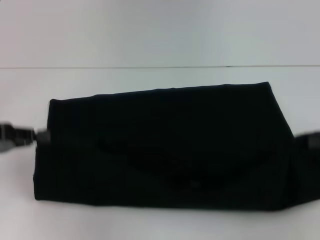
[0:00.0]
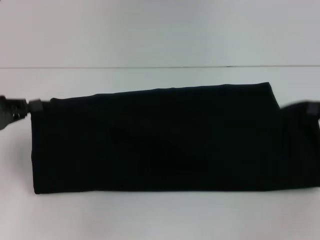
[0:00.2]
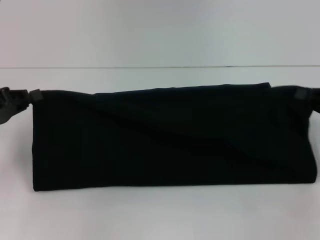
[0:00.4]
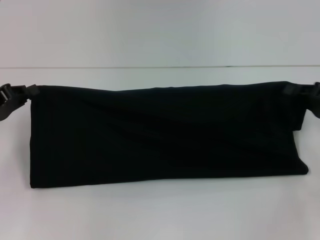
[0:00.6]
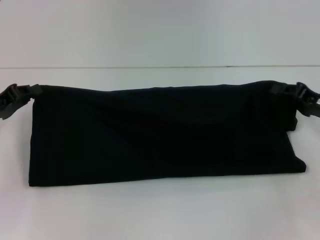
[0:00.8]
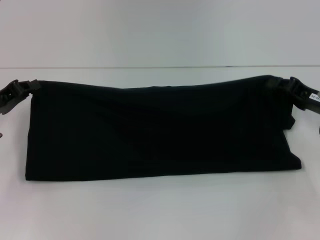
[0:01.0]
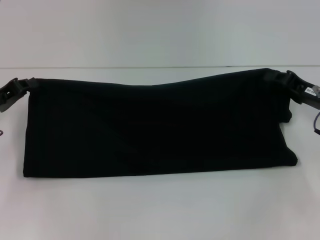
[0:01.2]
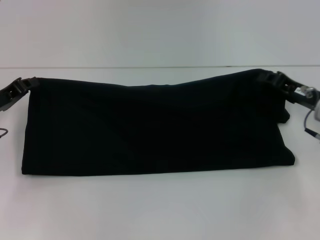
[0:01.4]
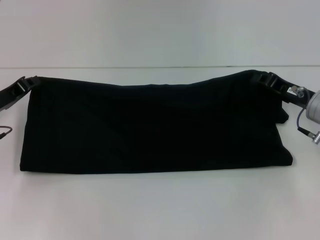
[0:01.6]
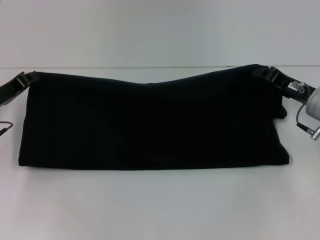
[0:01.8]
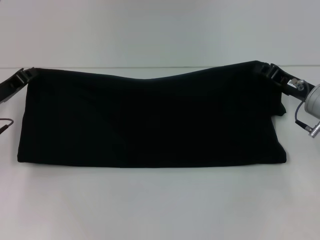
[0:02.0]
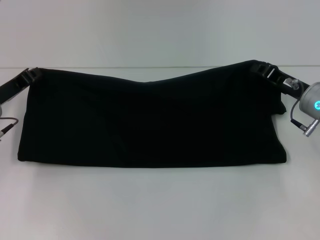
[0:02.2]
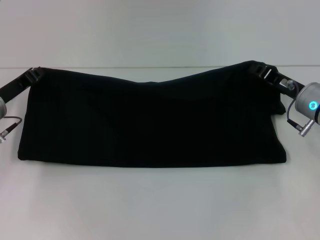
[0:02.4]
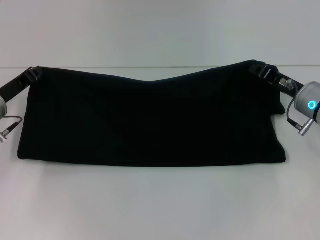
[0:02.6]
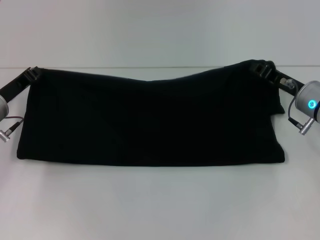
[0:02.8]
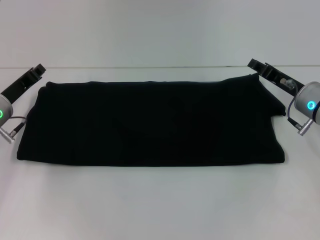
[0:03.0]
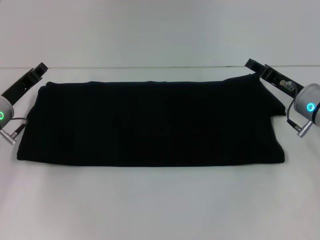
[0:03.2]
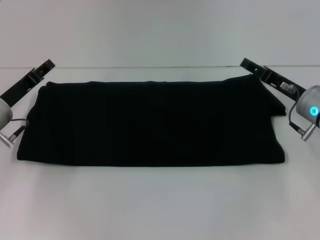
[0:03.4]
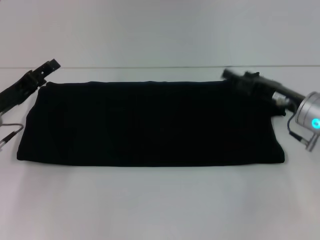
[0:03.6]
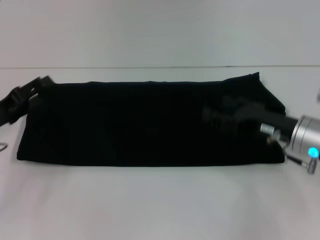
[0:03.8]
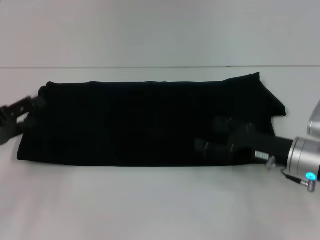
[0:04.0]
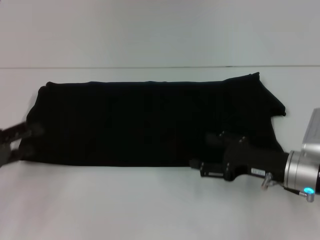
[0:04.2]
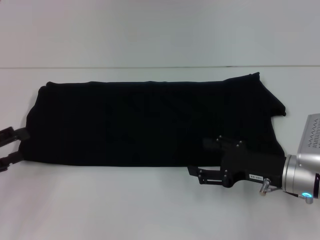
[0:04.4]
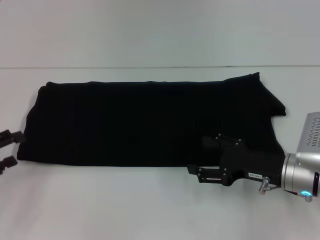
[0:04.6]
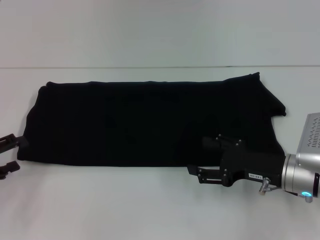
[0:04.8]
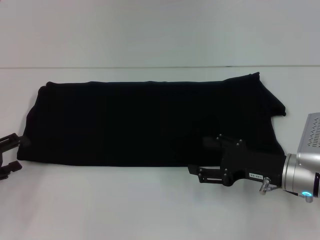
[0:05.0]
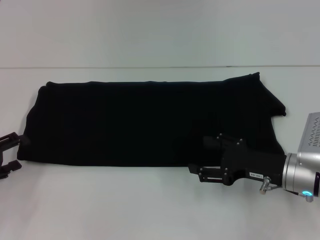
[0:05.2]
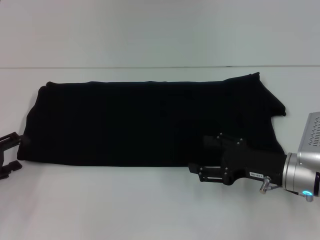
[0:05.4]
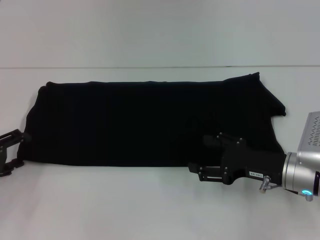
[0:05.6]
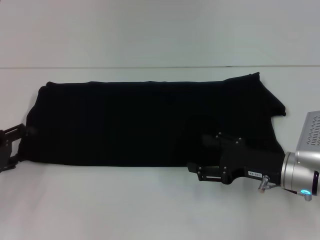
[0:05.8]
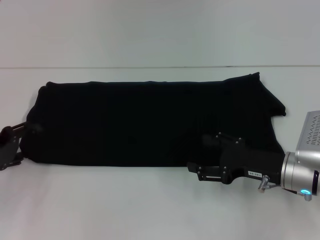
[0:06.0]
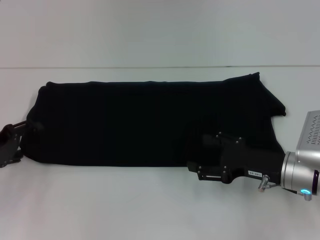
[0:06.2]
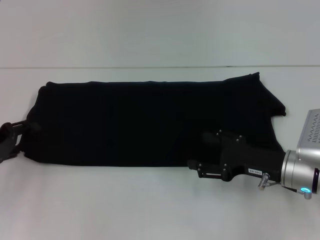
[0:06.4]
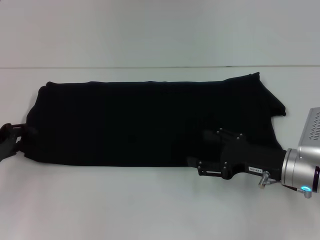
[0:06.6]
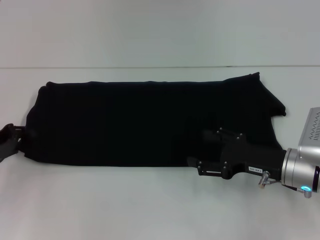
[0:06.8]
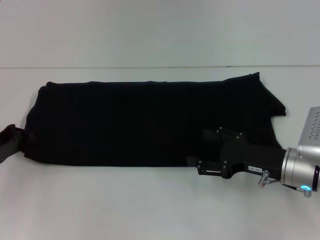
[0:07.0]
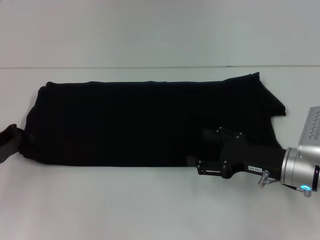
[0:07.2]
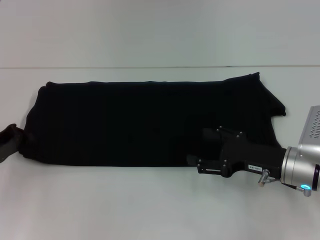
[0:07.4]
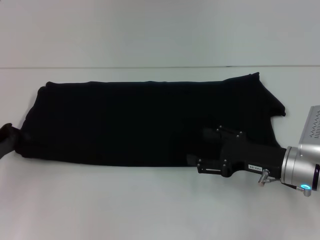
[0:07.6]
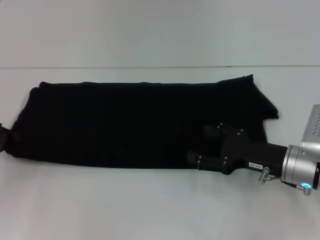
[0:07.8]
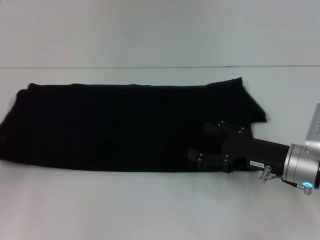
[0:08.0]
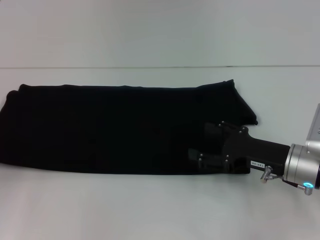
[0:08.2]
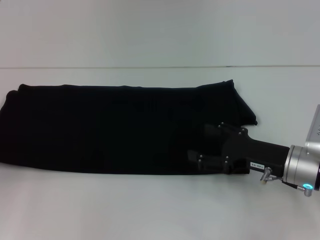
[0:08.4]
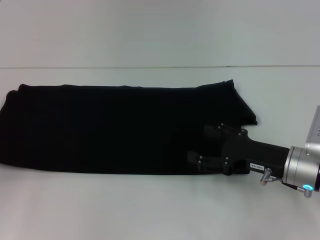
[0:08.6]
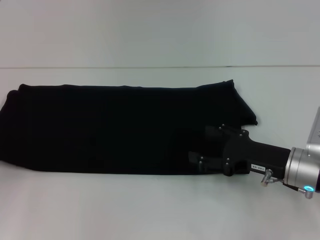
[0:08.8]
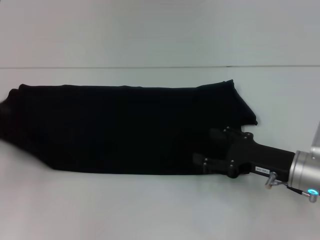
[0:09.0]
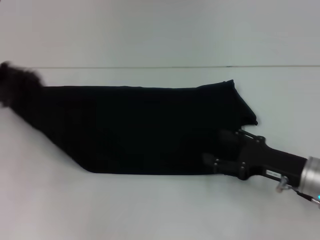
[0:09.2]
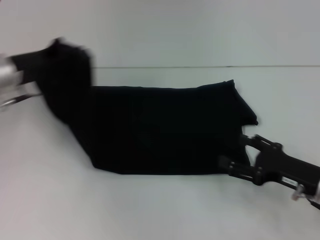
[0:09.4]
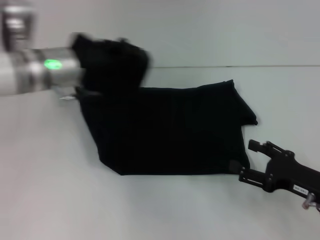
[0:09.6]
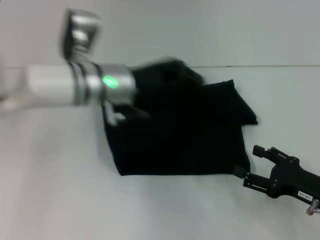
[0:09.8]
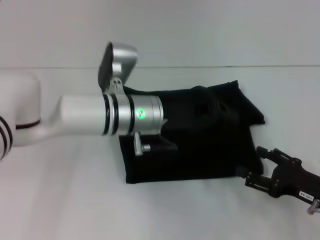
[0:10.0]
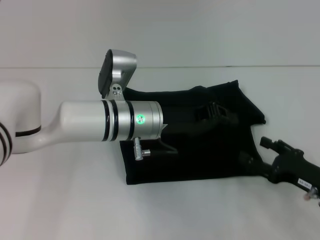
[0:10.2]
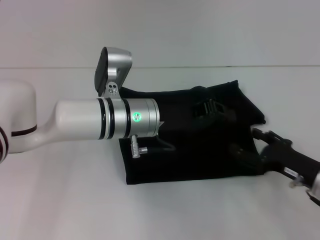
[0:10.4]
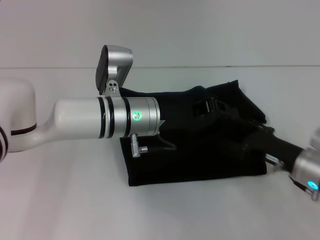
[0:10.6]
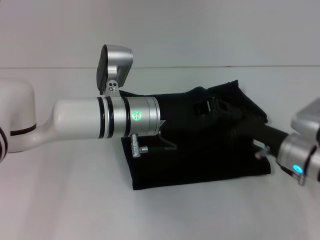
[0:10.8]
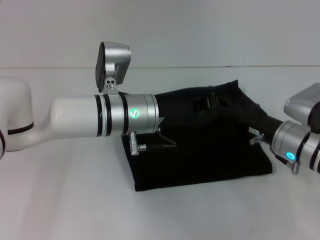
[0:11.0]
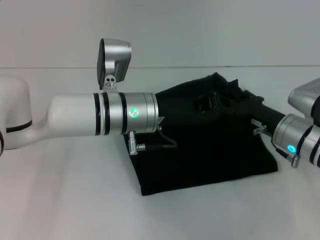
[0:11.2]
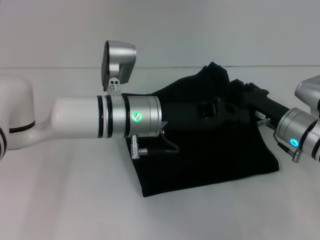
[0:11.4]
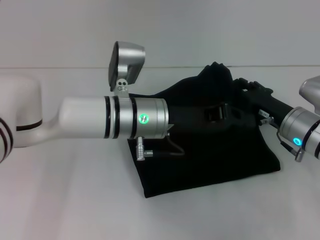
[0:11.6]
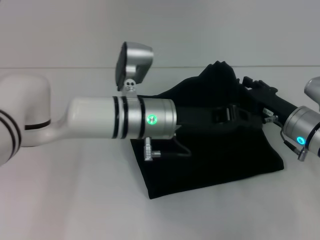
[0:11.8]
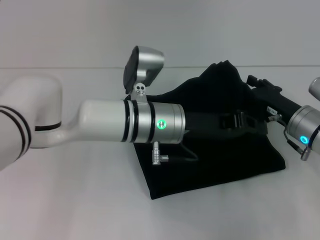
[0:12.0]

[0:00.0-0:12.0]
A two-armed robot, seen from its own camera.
Step, 0:00.0 to 0:03.0: Fold the clothes with your right hand.
0:00.0 to 0:01.6: The right gripper travels to the left, forward and downward by approximately 15 cm. The left gripper heads forward and downward, covering approximately 10 cm.
0:01.6 to 0:03.0: The grippers make only small movements.
0:03.0 to 0:04.4: The right gripper travels backward by roughly 10 cm, and opens its fingers; the left gripper heads backward and to the left, covering about 15 cm, and opens.
0:04.4 to 0:06.0: The left gripper heads forward, covering roughly 5 cm.
0:06.0 to 0:07.6: The left gripper closes.
0:07.6 to 0:09.0: The grippers move only a little.
0:09.0 to 0:10.4: The left gripper shifts approximately 30 cm to the right.
0:10.4 to 0:12.0: The right gripper travels forward by some 10 cm.

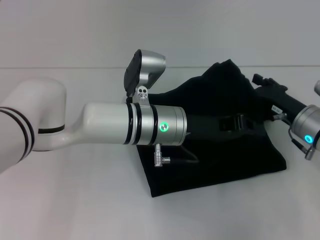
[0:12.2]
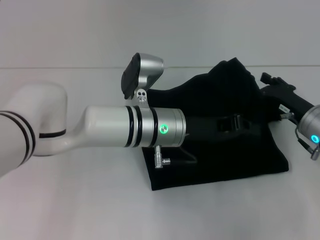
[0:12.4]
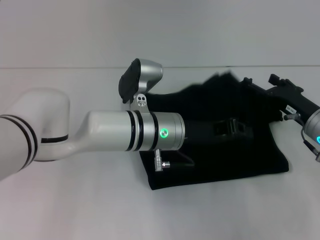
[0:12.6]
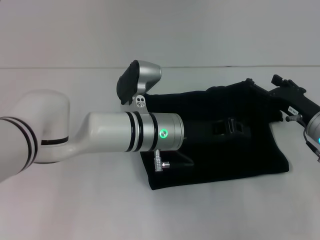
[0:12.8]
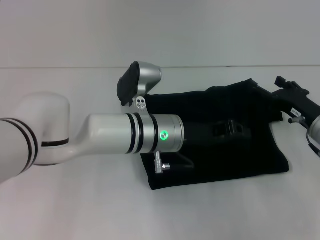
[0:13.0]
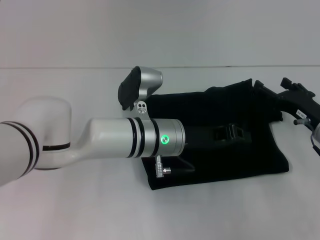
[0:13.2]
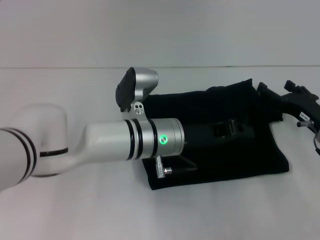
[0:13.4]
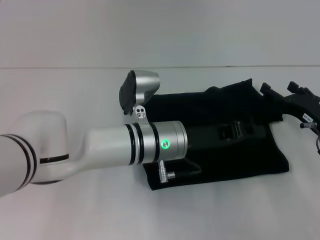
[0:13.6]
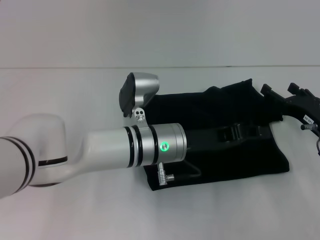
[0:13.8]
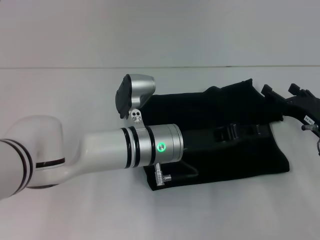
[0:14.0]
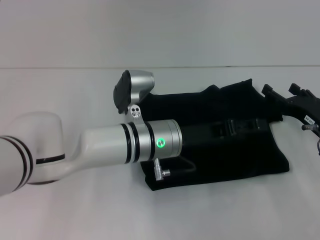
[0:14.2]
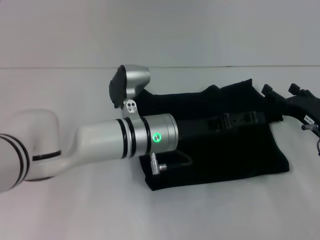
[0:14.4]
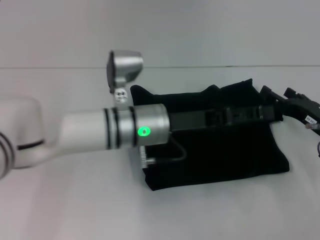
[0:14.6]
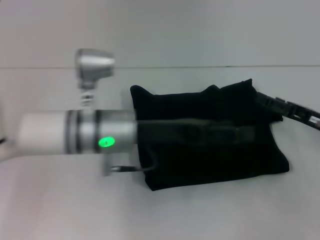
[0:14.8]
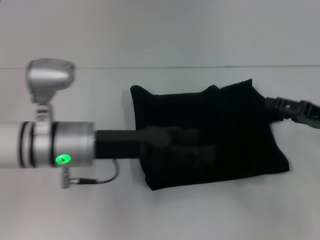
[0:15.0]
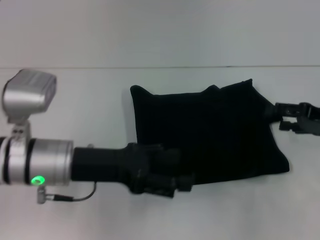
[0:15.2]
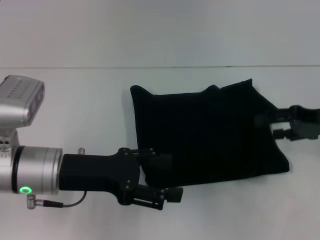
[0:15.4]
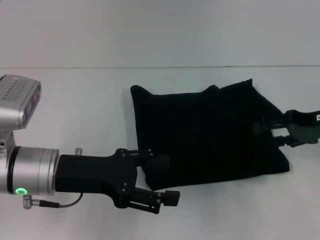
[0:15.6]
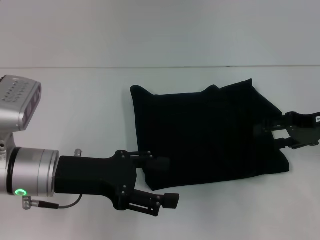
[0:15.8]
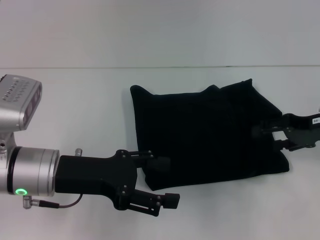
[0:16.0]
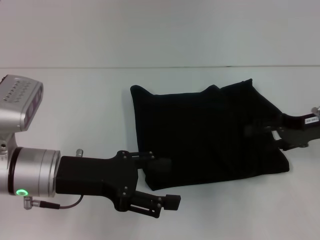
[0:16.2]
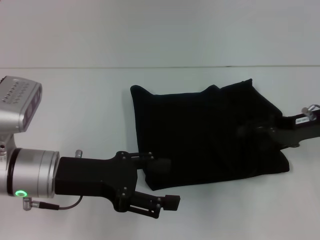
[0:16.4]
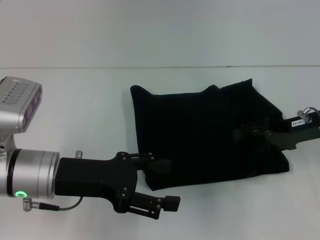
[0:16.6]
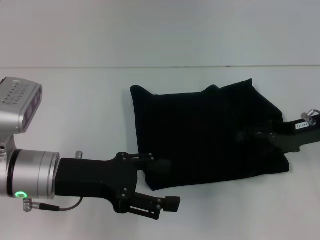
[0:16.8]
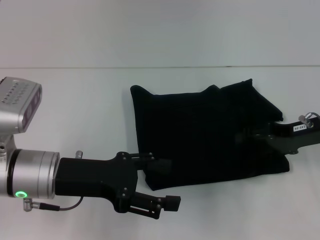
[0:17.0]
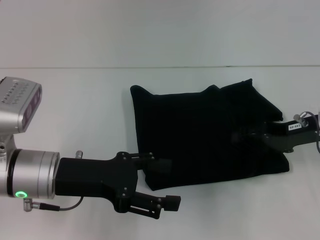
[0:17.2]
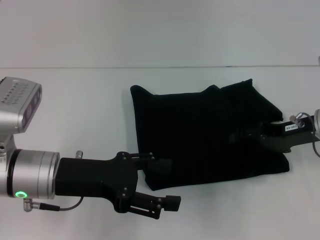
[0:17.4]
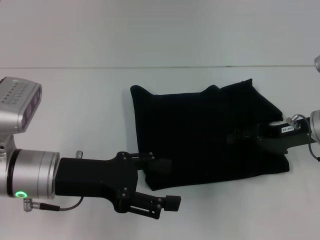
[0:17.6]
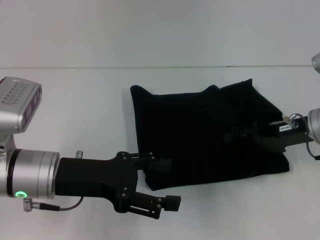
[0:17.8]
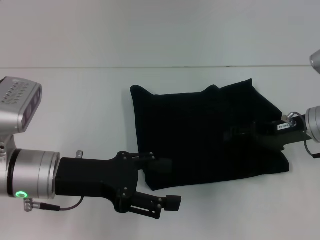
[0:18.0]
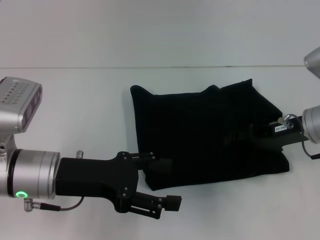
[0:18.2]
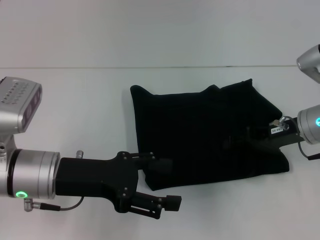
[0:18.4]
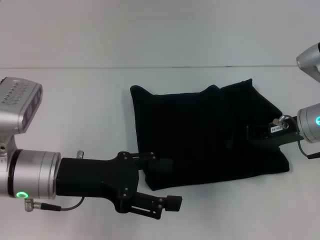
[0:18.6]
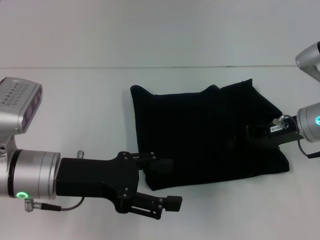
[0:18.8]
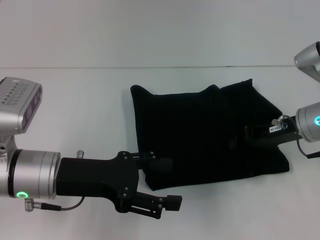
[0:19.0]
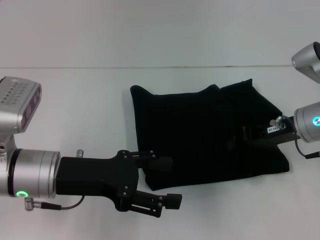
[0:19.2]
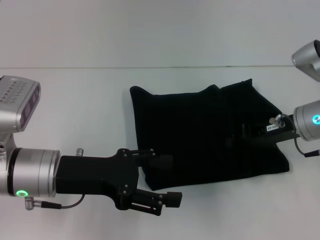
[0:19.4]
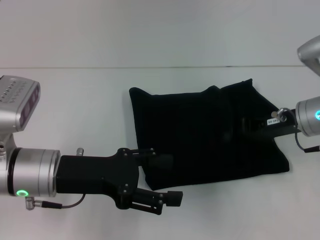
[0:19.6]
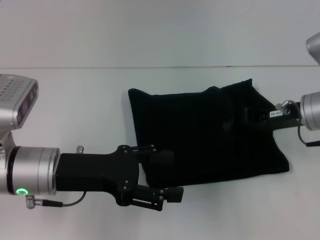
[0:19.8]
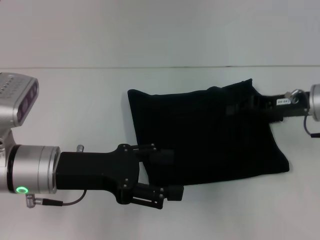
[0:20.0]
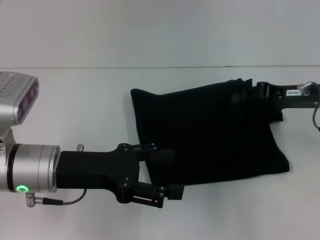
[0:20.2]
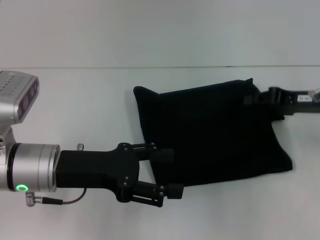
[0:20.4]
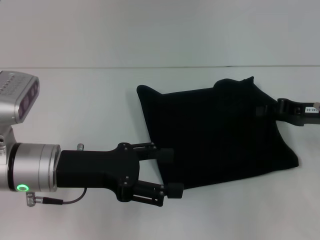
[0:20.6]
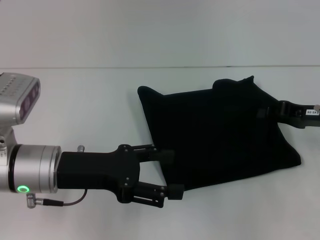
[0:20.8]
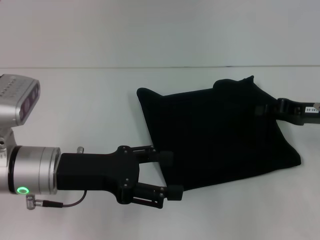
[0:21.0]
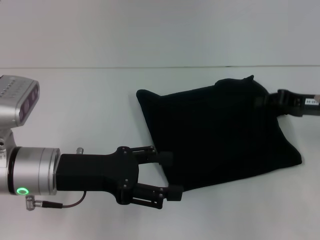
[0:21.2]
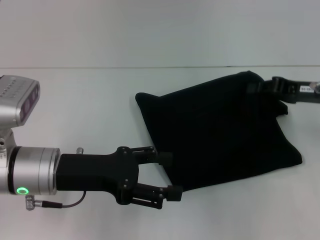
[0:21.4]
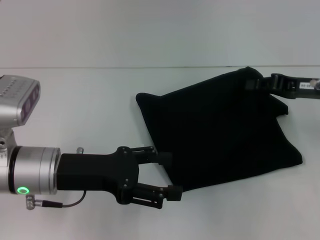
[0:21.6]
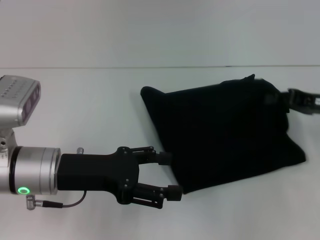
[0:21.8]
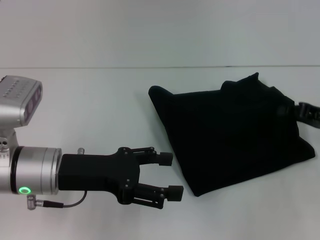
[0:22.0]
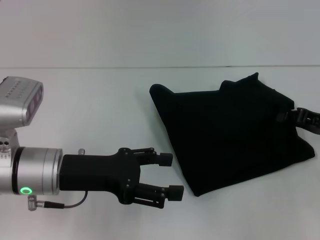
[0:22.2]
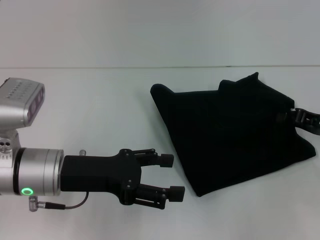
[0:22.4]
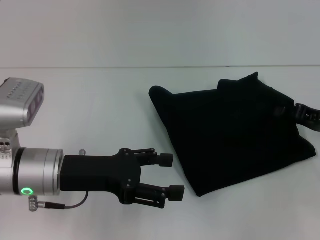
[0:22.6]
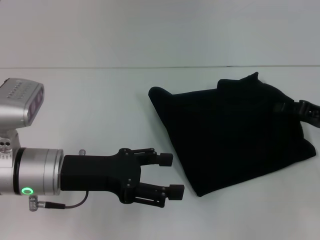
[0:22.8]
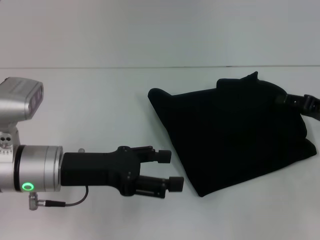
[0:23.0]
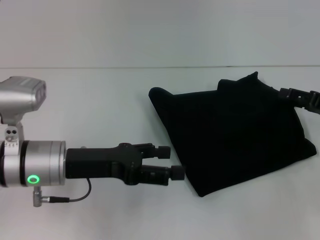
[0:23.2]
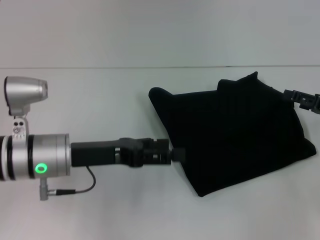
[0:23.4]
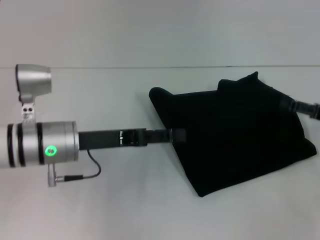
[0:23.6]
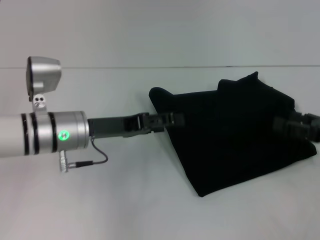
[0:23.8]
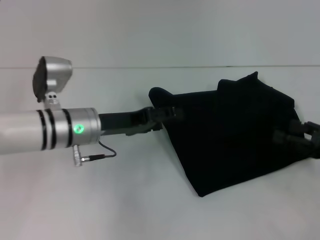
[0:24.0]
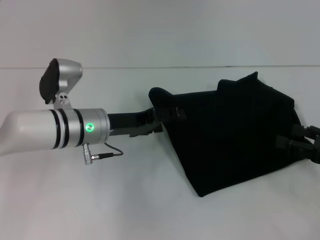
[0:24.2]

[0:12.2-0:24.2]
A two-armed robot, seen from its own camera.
Step, 0:12.2 to 0:14.6: Fold the clothes with your left hand.
0:12.2 to 0:13.8: There are only small adjustments of the grippers.
0:13.8 to 0:15.2: The right gripper shifts about 5 cm upward, while the left gripper moves to the left, some 15 cm, and opens its fingers.
0:15.2 to 0:16.6: The right gripper is displaced to the left by some 5 cm.
0:16.6 to 0:18.2: The grippers stay close to where they were, moving slightly.
0:18.2 to 0:19.8: The right gripper closes.
0:19.8 to 0:21.2: The right gripper shifts approximately 5 cm to the right.
0:21.2 to 0:22.6: The grippers move only a little.
0:22.6 to 0:24.2: The left gripper is displaced forward by roughly 10 cm; the right gripper heads backward, covering about 5 cm, and opens up.
